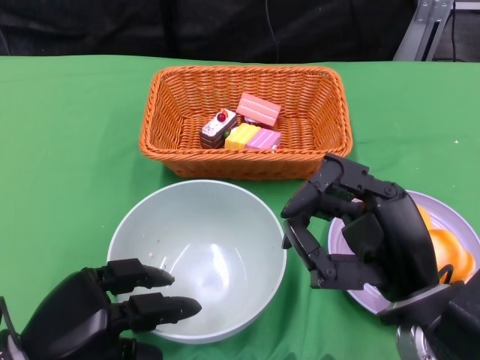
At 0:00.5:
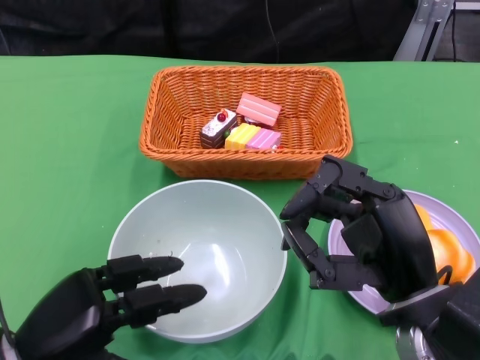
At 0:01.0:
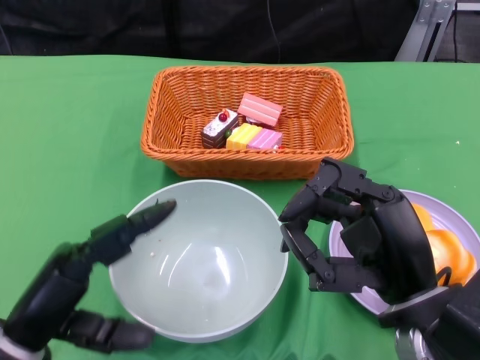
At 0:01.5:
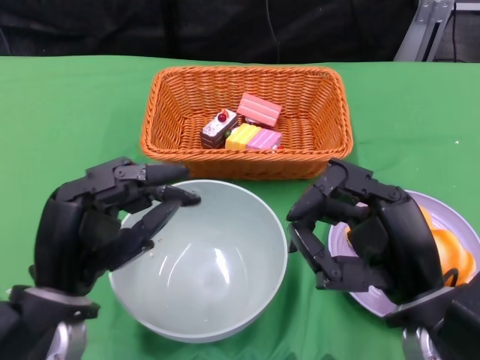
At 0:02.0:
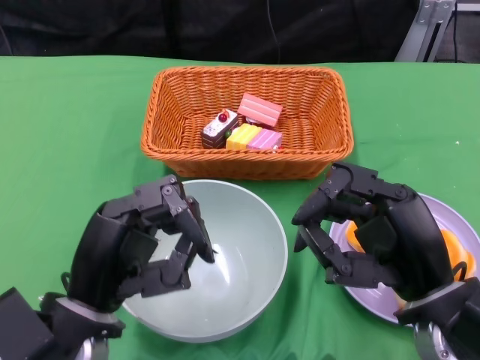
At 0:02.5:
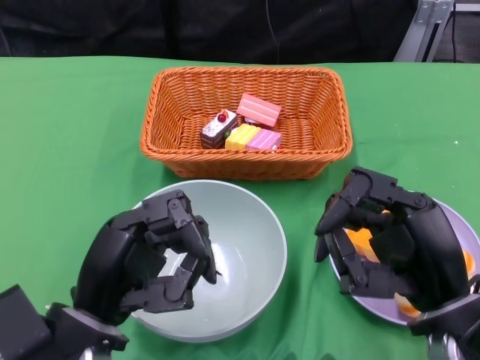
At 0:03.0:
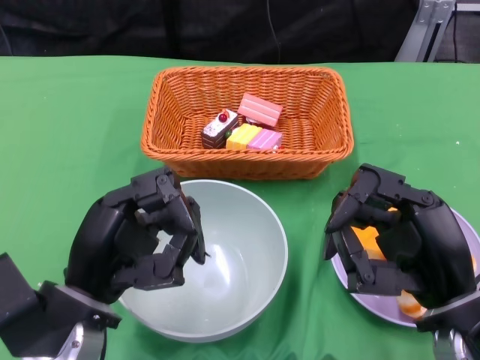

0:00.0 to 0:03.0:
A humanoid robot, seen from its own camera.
0:00.0 to 0:01.5: The left hand moves upward, about 5 cm.

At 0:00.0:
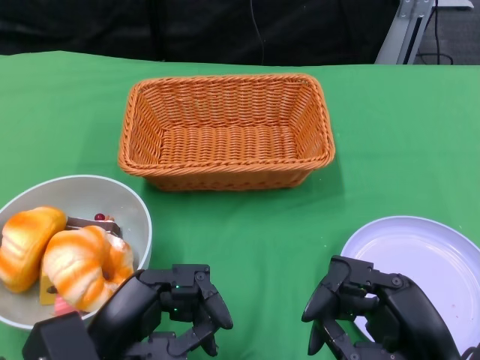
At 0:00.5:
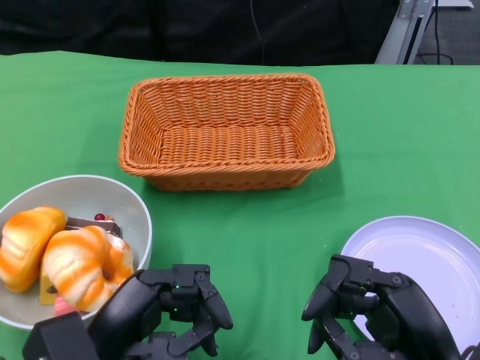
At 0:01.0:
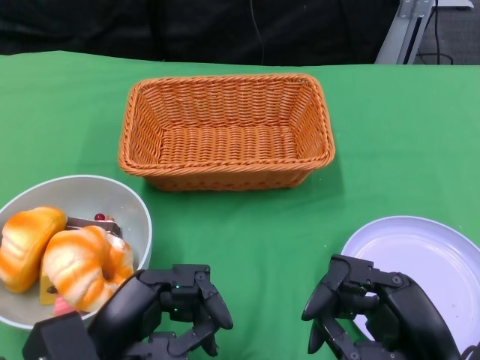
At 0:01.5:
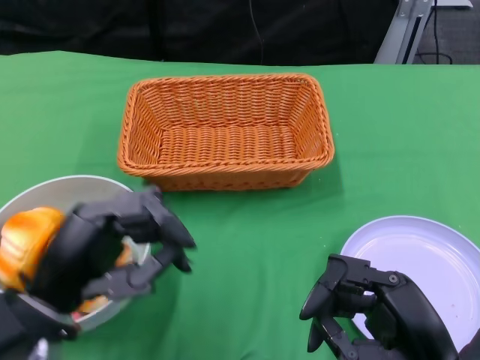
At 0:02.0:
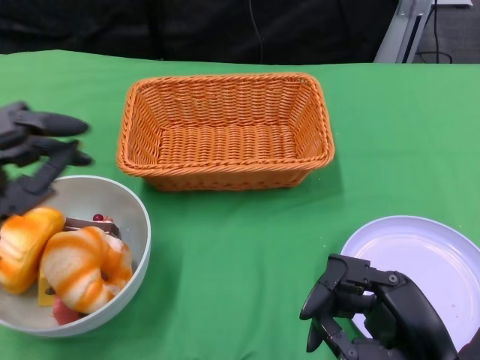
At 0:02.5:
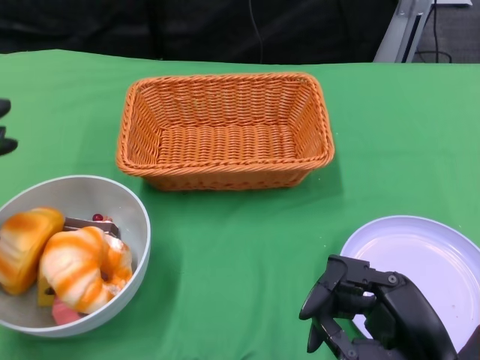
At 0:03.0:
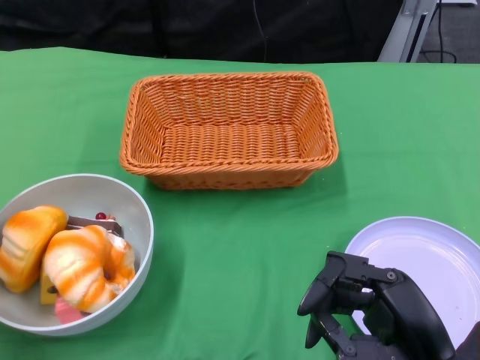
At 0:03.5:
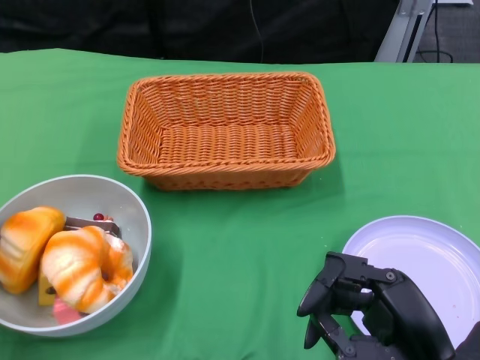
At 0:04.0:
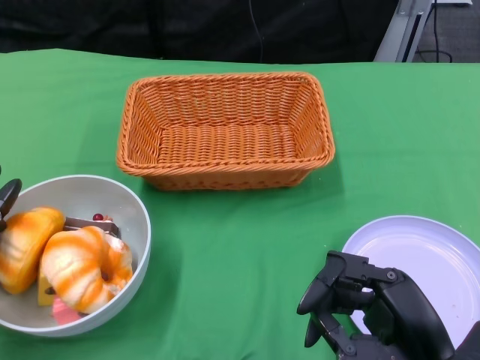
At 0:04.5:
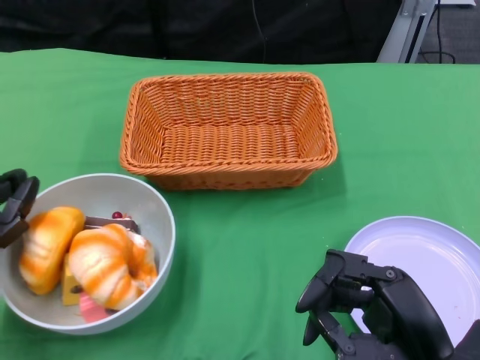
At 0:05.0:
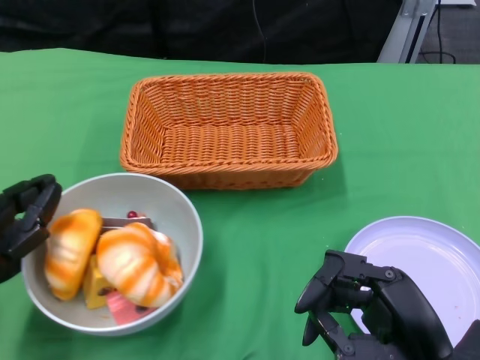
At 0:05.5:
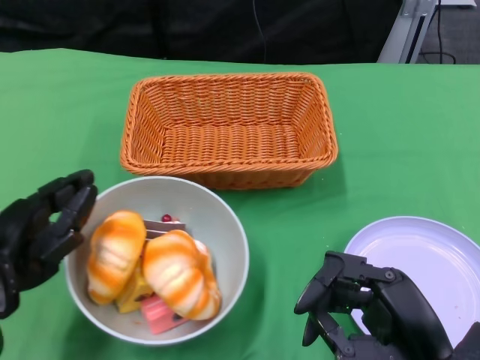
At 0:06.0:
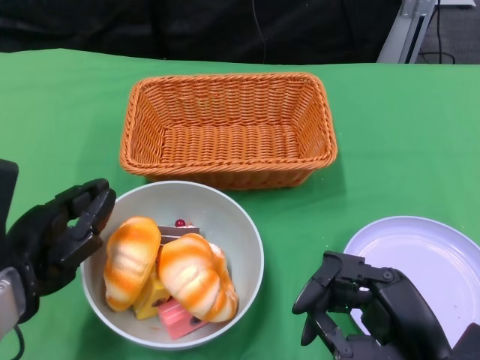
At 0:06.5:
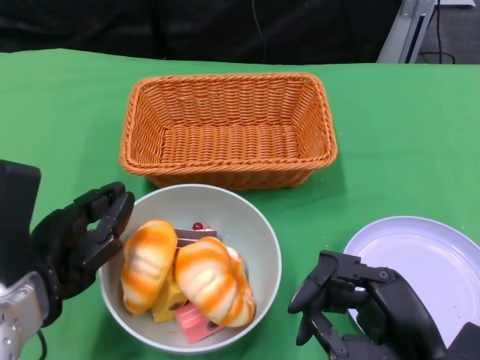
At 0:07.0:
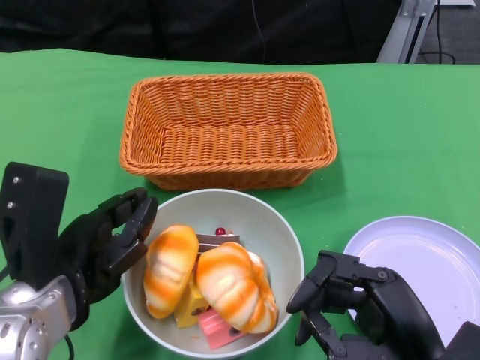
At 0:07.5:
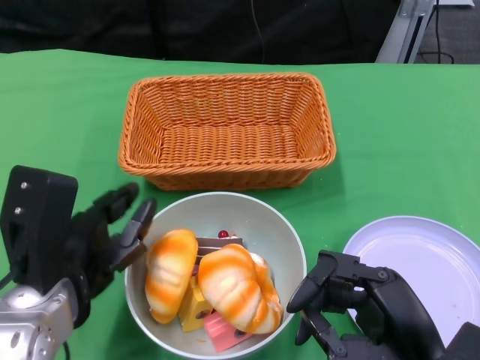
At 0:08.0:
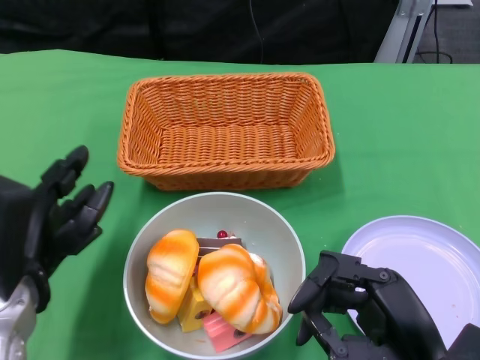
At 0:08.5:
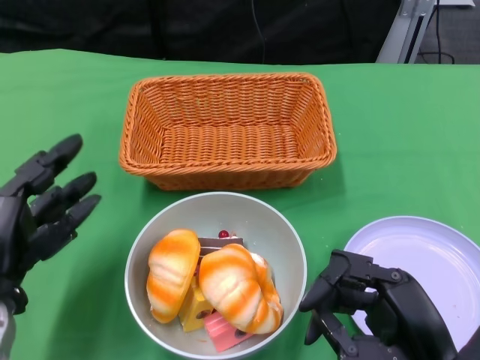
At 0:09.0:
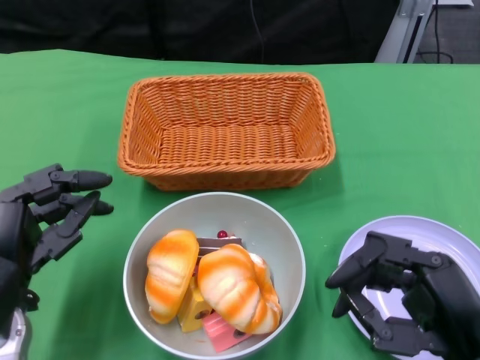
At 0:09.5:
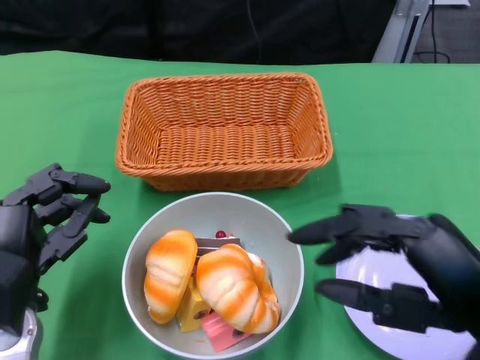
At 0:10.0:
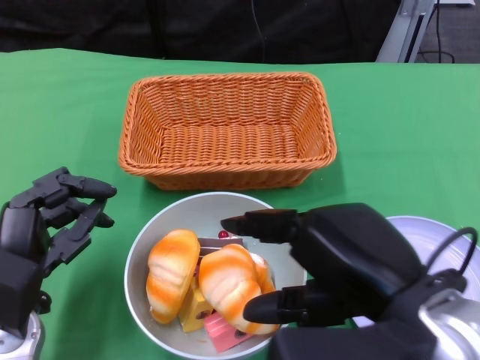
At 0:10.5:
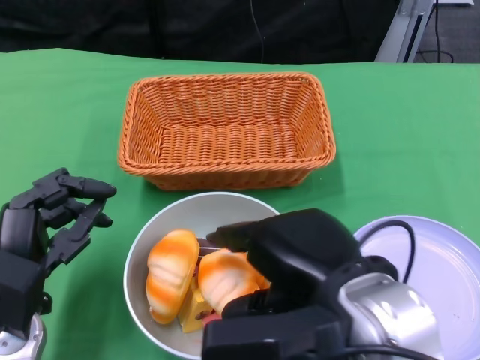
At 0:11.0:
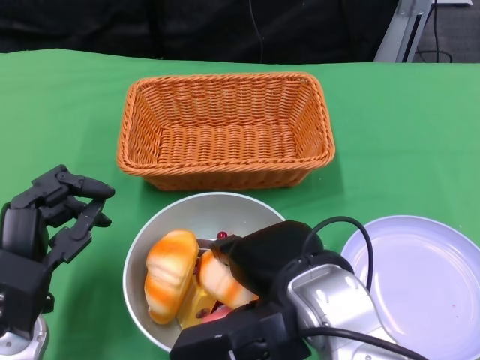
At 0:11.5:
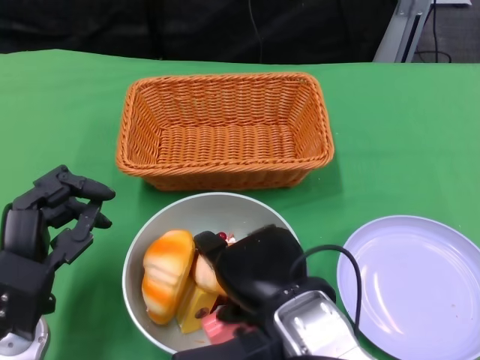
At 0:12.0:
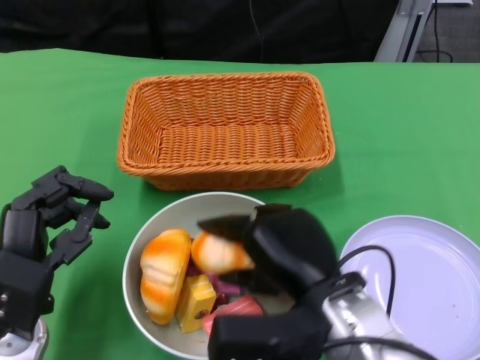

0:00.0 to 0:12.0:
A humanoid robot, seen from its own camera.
Step, 0:00.0 to 0:07.5: Push the bowl to the center of the table using the left gripper.
0:02.0 to 0:04.0: The left hand moves to the left, roughly 5 cm.
0:04.0 to 0:06.0: The left hand goes about 10 cm to the right.
0:08.0 to 0:10.0: The right hand shifts roughly 15 cm upward.
0:10.0 to 0:12.0: The right hand goes about 15 cm downward, to the left and forward.

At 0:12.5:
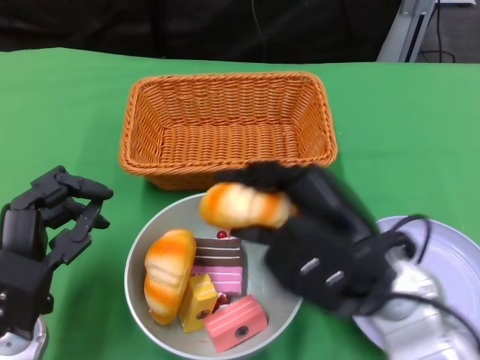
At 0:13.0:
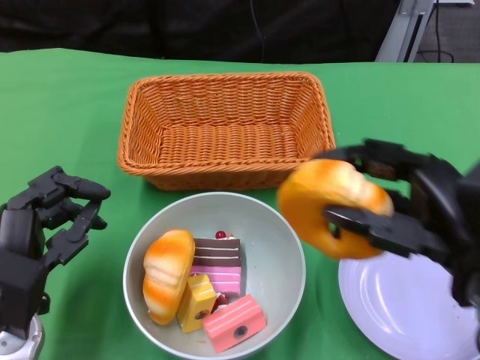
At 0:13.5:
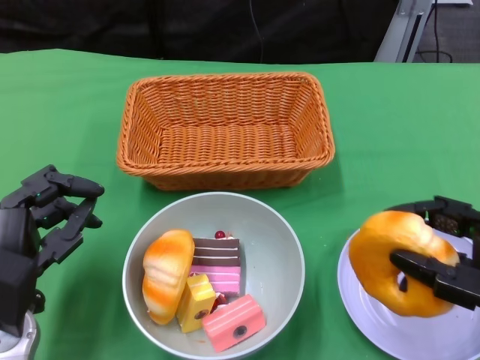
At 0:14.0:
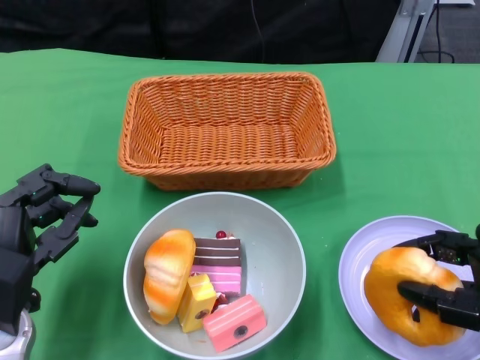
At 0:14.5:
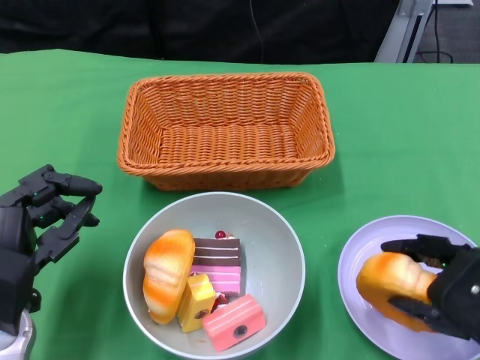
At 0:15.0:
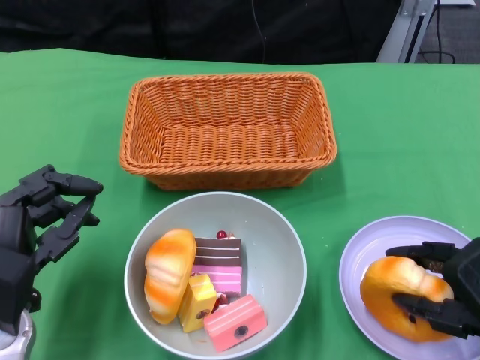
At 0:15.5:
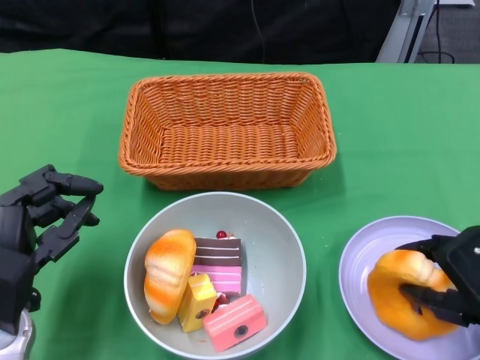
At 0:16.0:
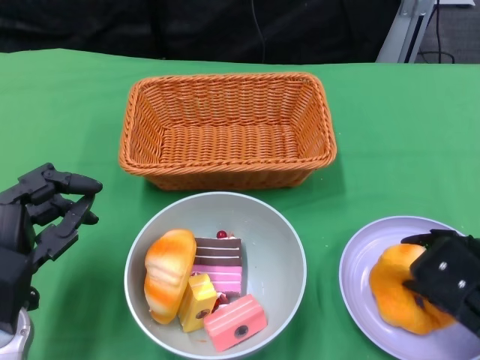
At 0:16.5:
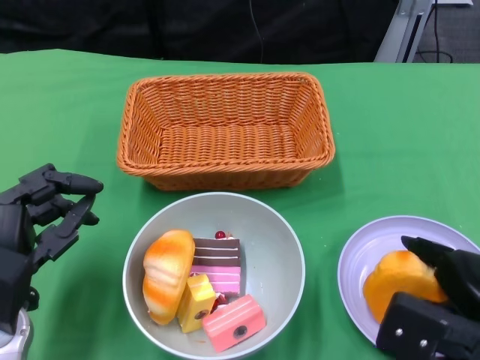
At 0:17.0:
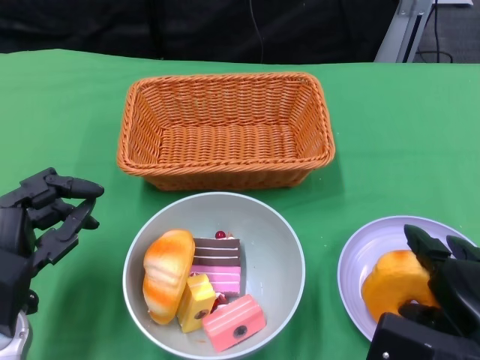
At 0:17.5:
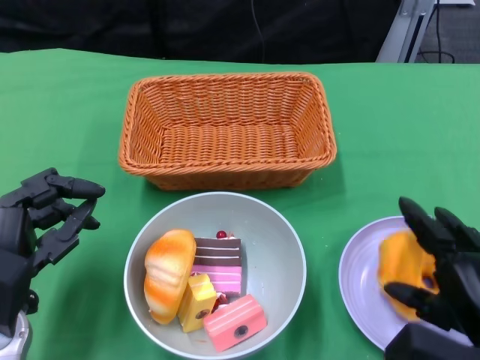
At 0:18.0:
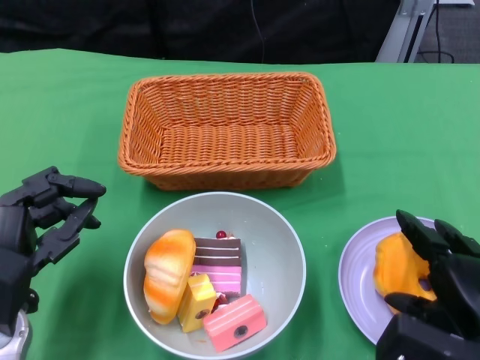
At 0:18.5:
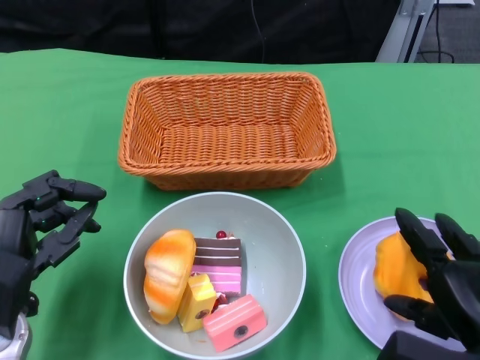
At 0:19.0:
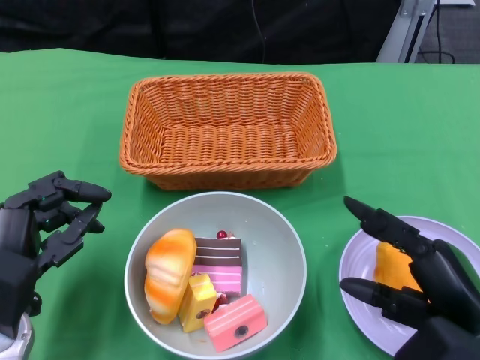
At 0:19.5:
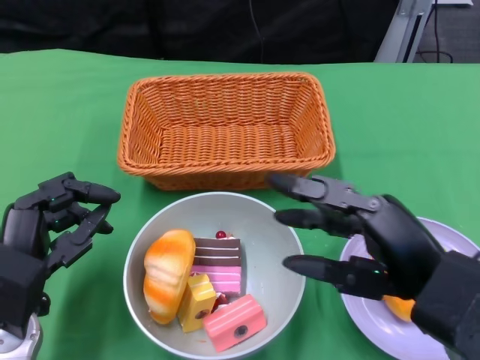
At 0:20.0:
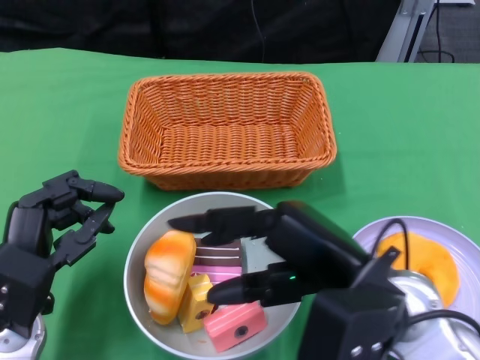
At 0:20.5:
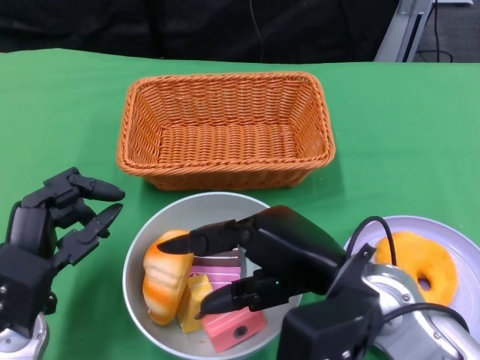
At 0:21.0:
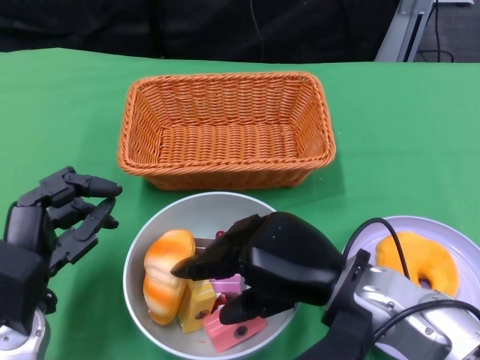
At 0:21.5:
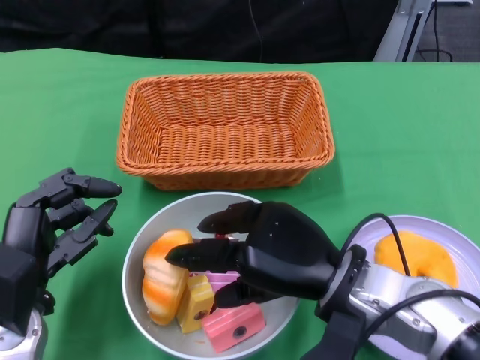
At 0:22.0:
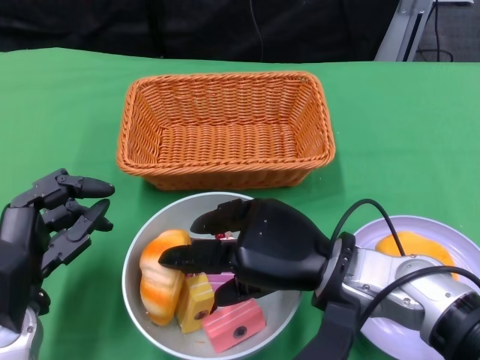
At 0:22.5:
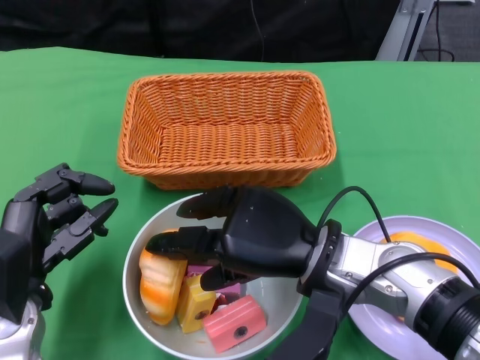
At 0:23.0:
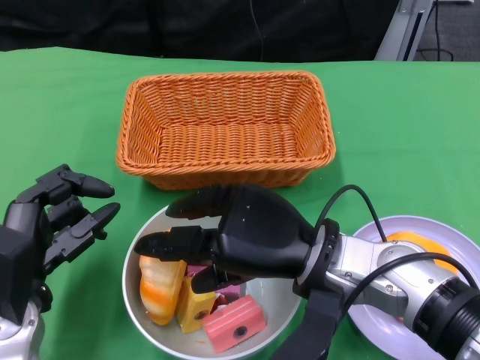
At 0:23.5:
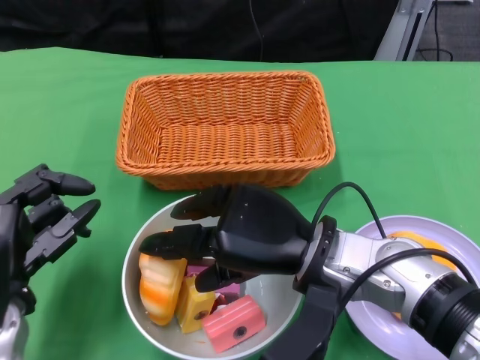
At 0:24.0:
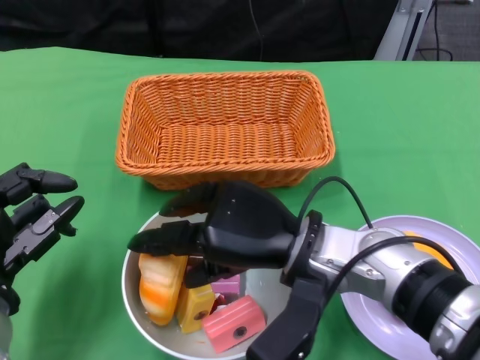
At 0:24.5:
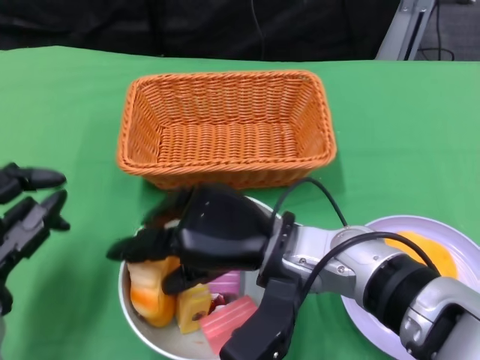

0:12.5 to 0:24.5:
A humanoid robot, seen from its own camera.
0:12.5 to 0:14.5: The right hand is displaced to the right and downward by roughly 15 cm.
0:18.5 to 0:20.5: The right hand is displaced to the left and upward by approximately 15 cm.
0:20.5 to 0:22.5: The right hand shifts by about 5 cm.
